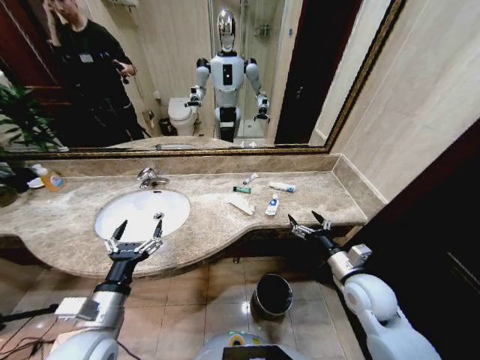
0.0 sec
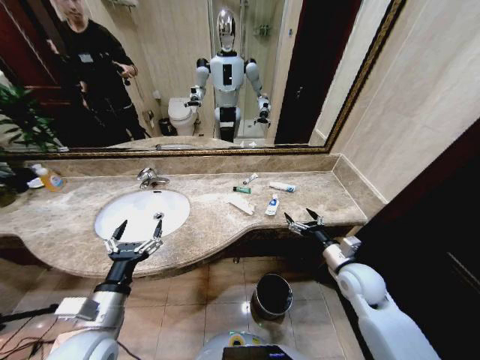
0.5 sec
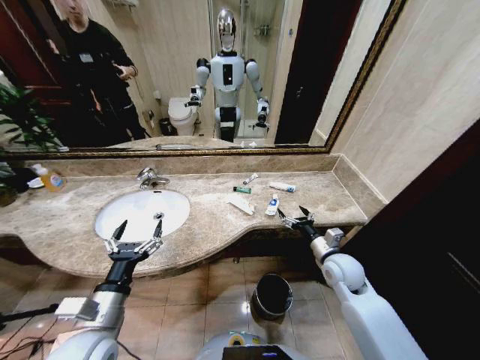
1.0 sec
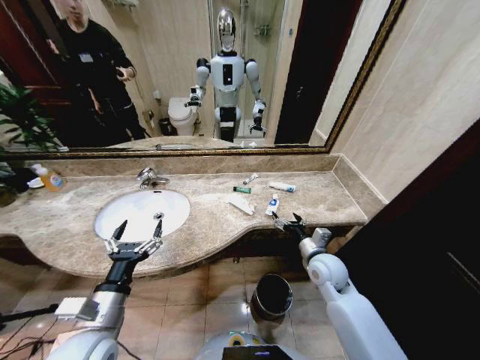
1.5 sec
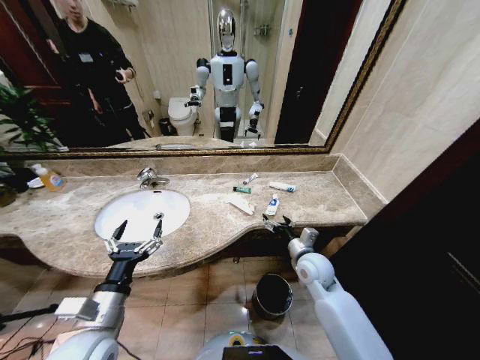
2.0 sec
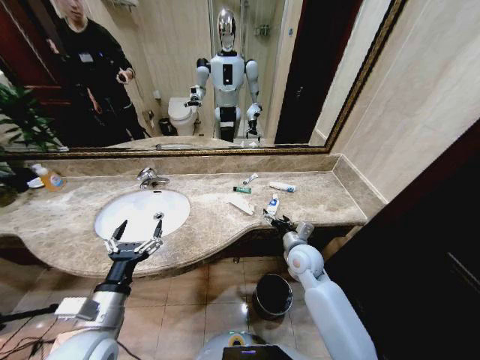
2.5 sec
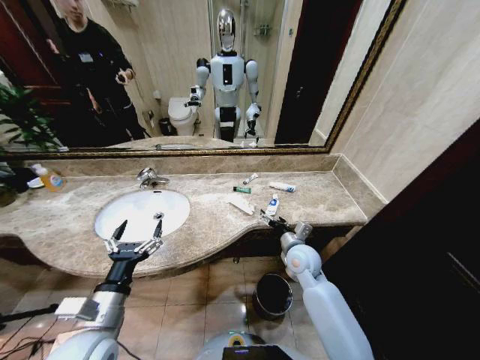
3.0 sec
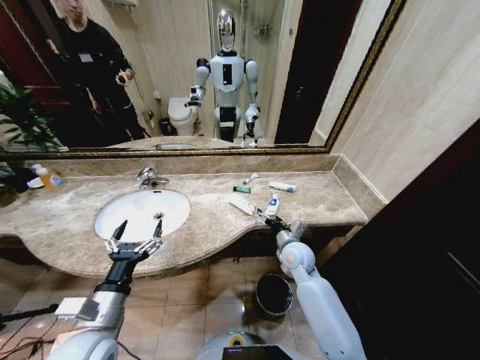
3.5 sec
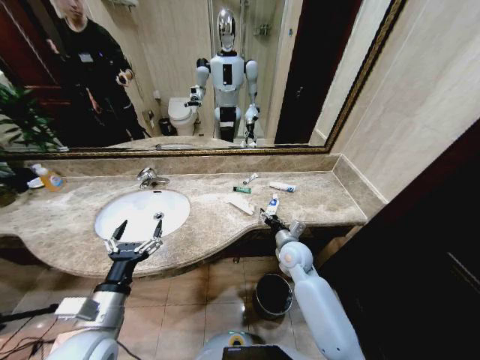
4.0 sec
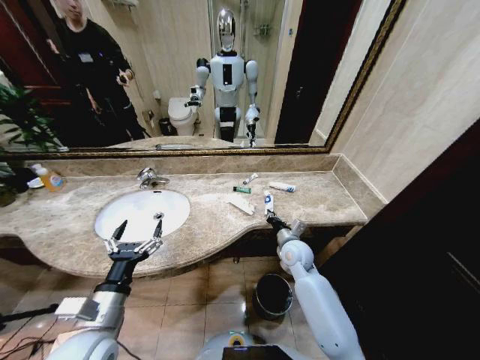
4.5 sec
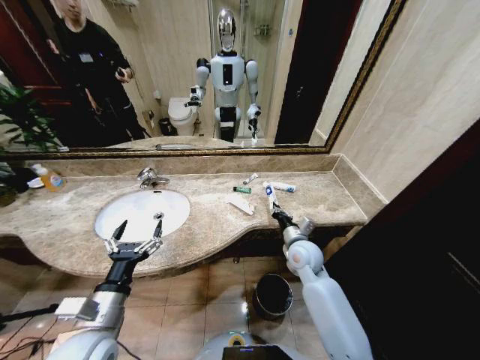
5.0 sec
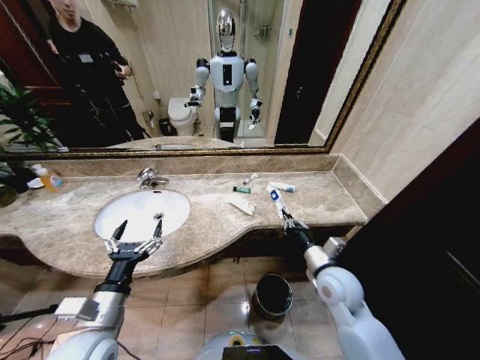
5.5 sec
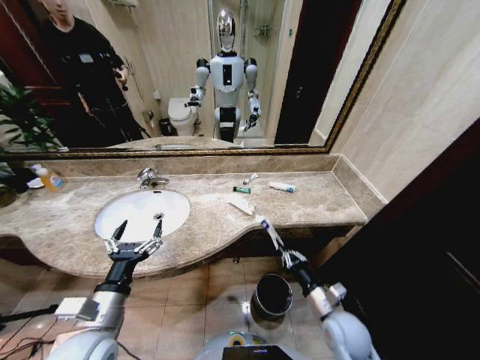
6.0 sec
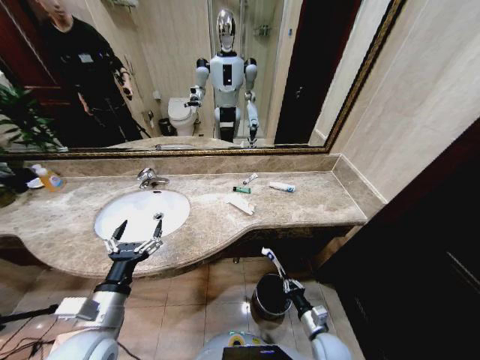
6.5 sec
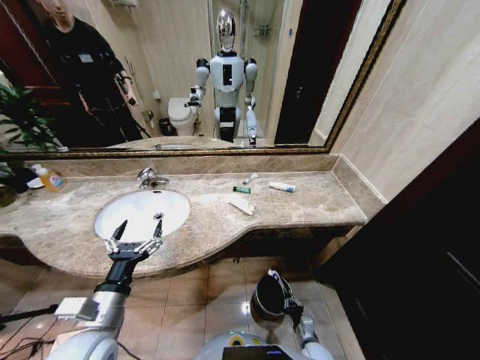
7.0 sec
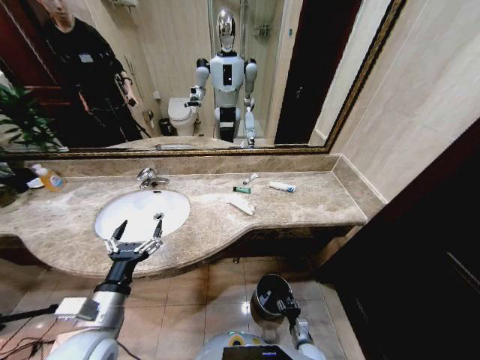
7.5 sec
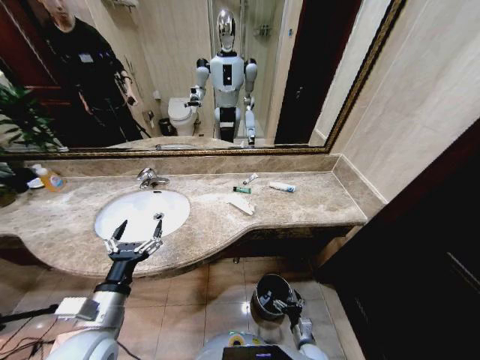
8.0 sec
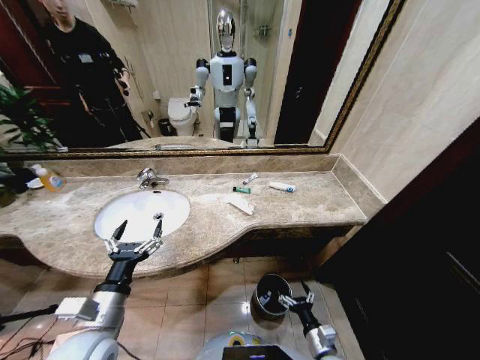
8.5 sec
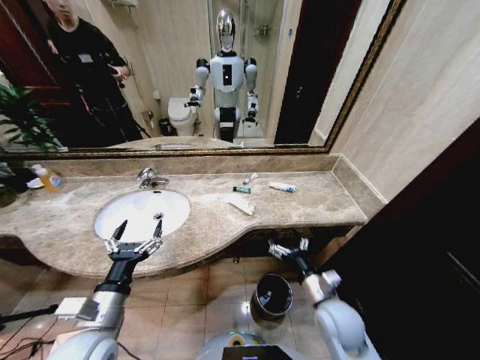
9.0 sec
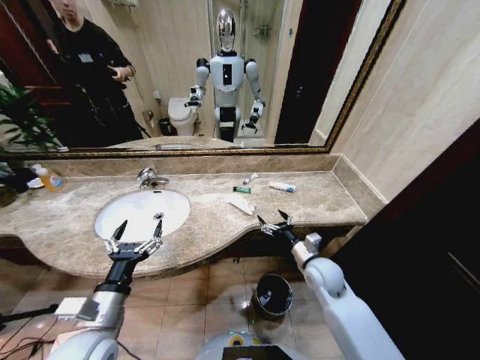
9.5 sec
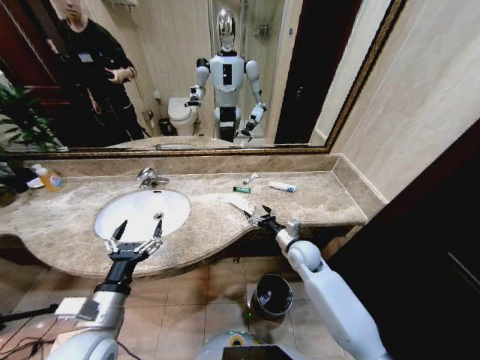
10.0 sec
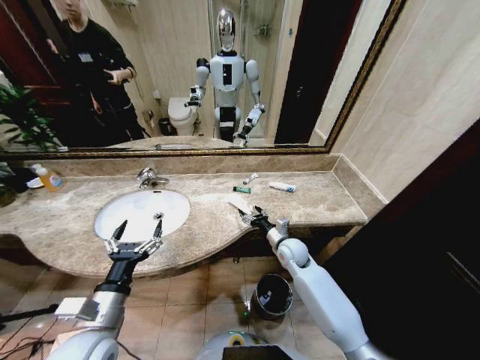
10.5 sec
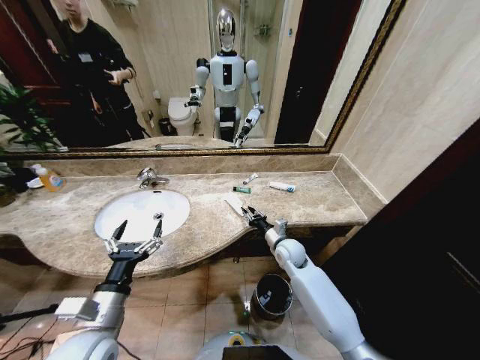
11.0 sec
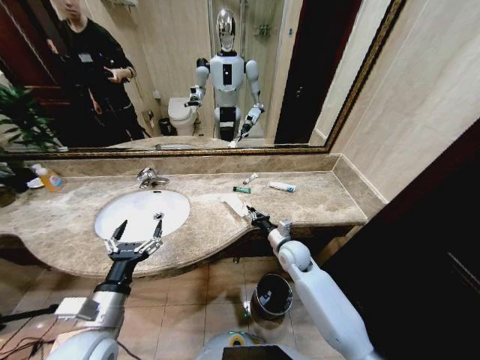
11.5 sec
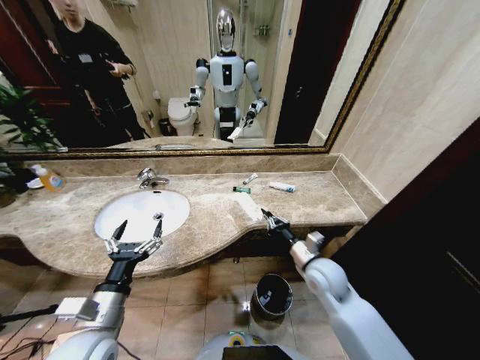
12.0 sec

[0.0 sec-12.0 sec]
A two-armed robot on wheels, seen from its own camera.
Task of the whole recording: Pick up the trash from the sink and place it in the trash bin.
2.0 sec to 4.0 sec: The right gripper ends up some 5 cm from where it was, and closes its fingers.
4.0 sec to 6.0 sec: The right gripper moves backward and to the right, some 20 cm, and closes up.
6.0 sec to 8.0 sec: The right gripper heads downward, covering roughly 25 cm, and opens up.
8.0 sec to 10.0 sec: The right gripper moves upward and forward, approximately 35 cm.
10.0 sec to 12.0 sec: The right gripper shifts about 10 cm backward, and closes its fingers.

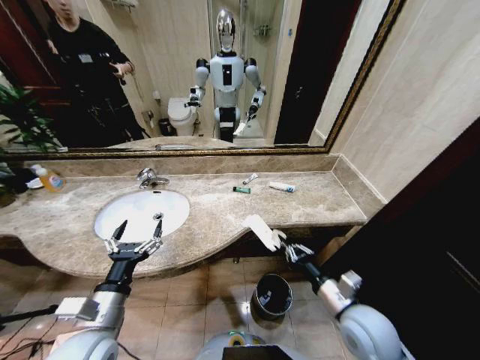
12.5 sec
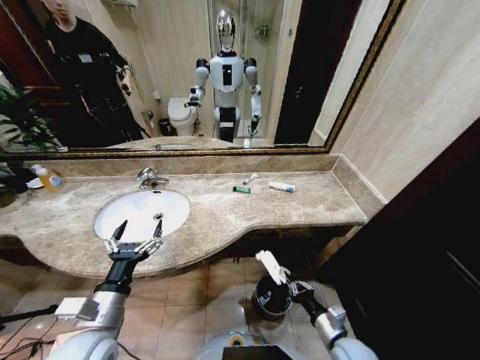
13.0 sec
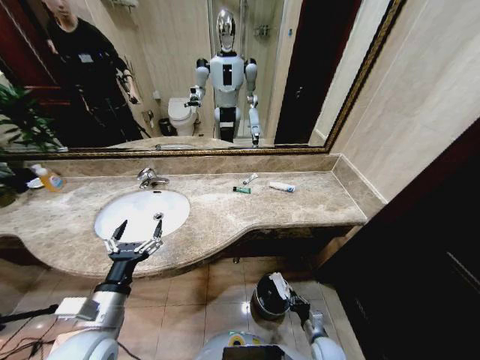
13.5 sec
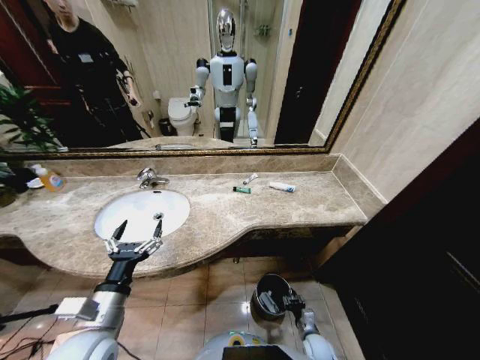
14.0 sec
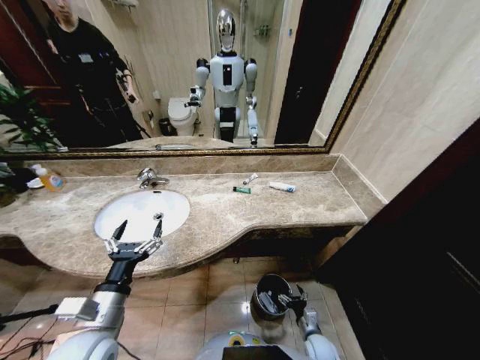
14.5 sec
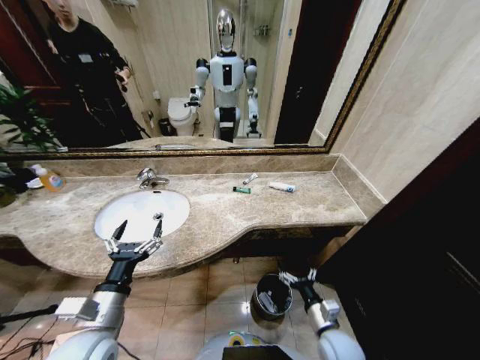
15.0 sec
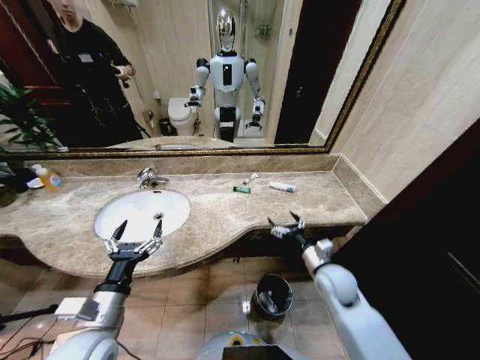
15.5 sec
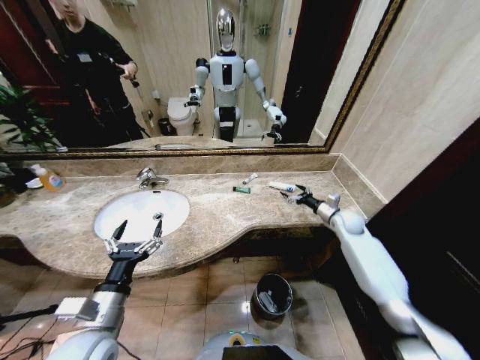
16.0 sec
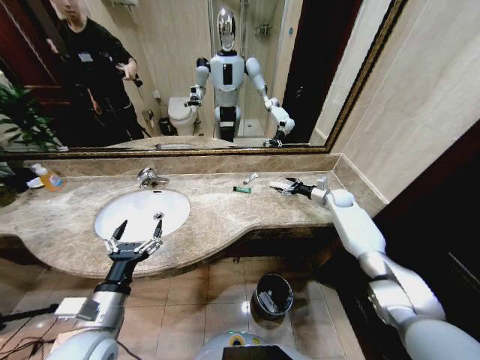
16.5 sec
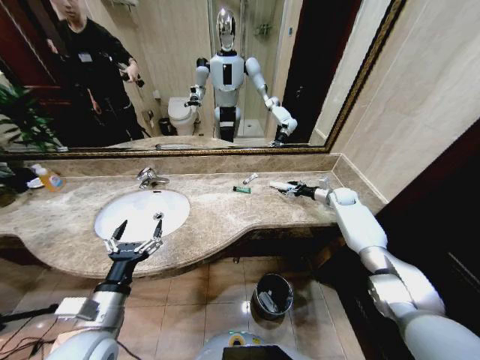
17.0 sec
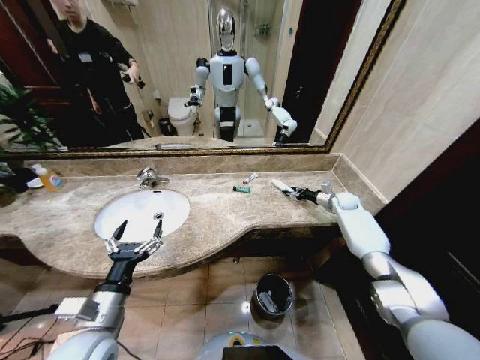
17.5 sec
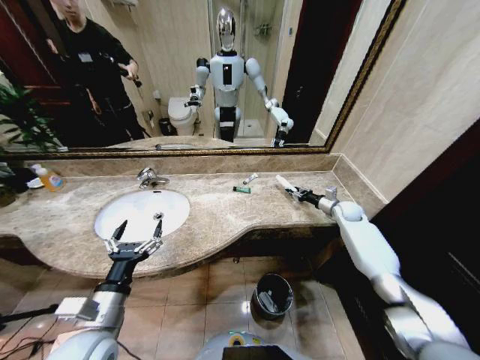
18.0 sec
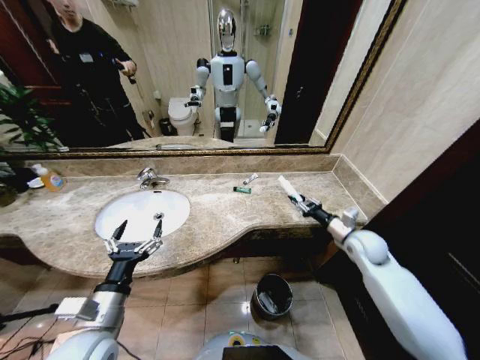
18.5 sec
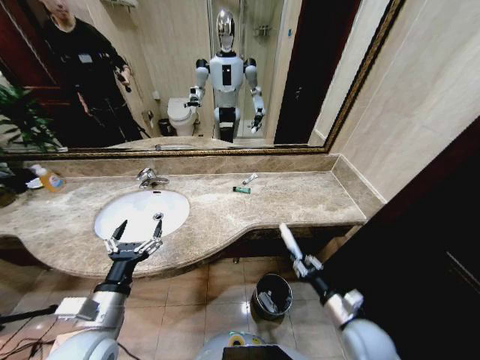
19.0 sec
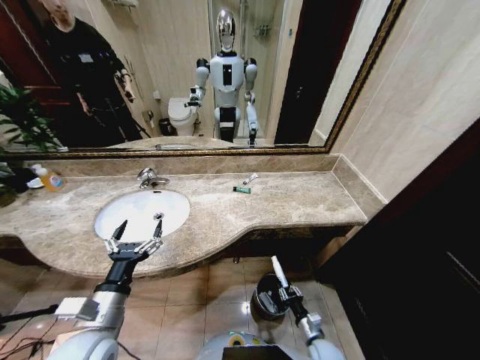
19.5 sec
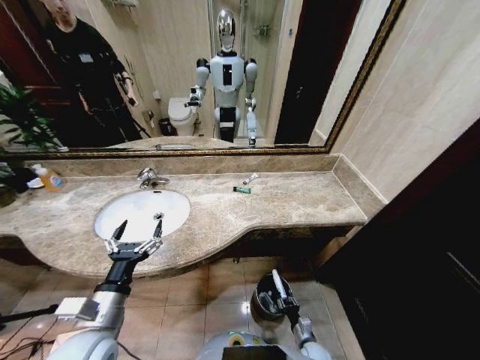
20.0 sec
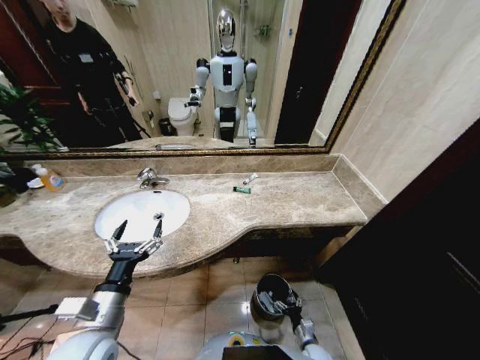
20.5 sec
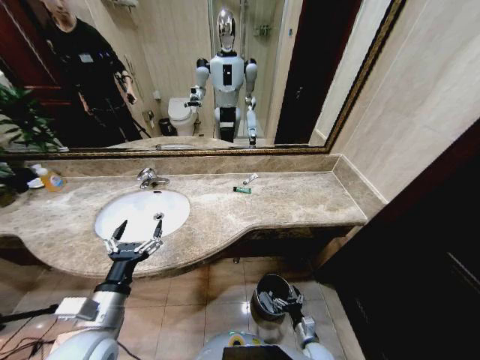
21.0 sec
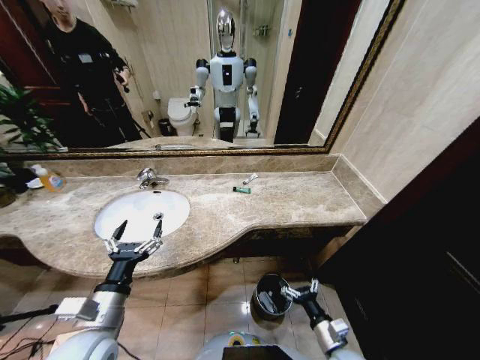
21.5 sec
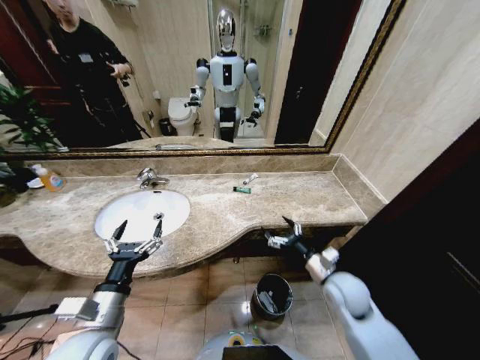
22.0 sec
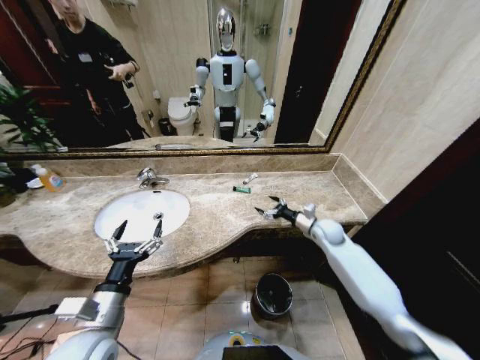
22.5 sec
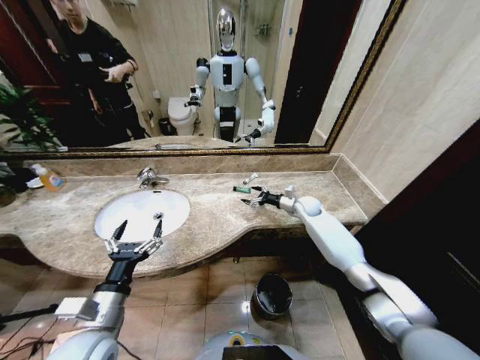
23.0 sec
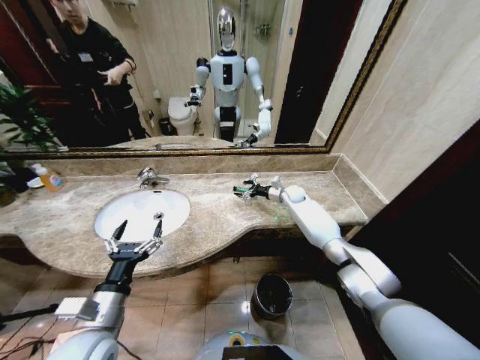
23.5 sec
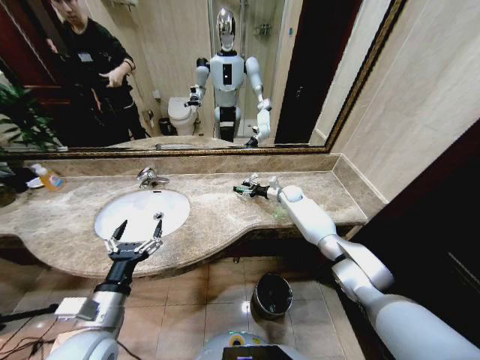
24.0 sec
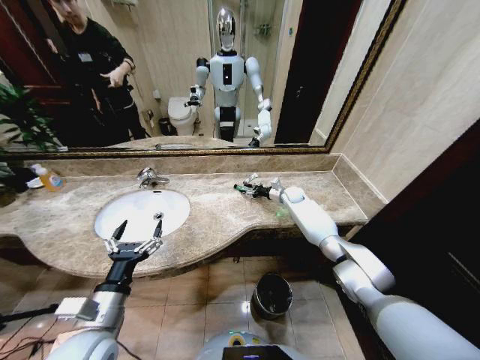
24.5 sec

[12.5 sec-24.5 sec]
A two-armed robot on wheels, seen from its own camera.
Task of the whole recording: Pick up the trash from the sink and place it in the trash bin.
12.5 sec to 14.5 sec: The right gripper moves downward, roughly 30 cm, and opens its fingers.
14.5 sec to 16.5 sec: The right gripper moves forward and upward, roughly 50 cm.
16.5 sec to 18.5 sec: The right gripper heads backward, covering approximately 20 cm, and closes.
18.5 sec to 20.5 sec: The right gripper goes roughly 40 cm downward and backward, and opens.
20.5 sec to 22.5 sec: The right gripper moves upward and forward, roughly 40 cm.
22.5 sec to 24.5 sec: The right gripper heads forward, covering about 20 cm, and closes its fingers.

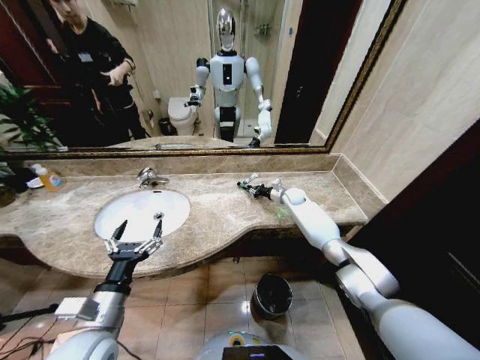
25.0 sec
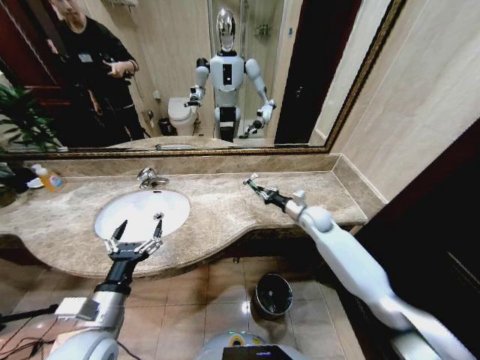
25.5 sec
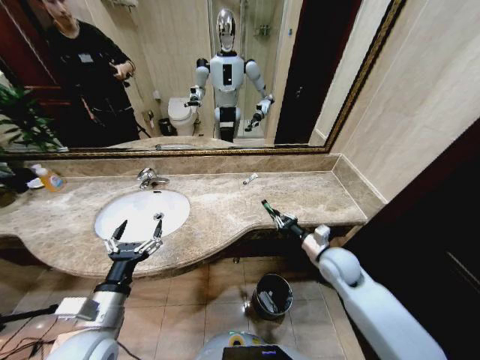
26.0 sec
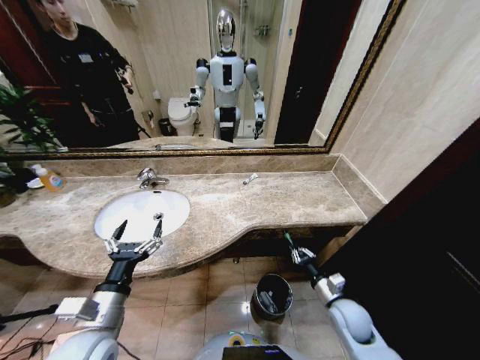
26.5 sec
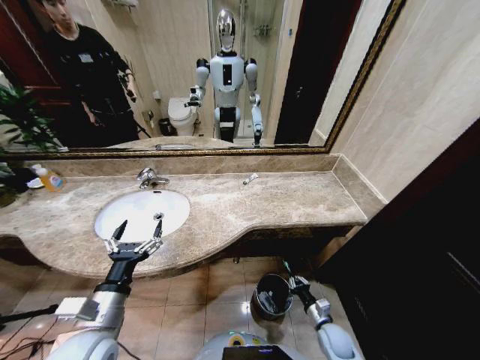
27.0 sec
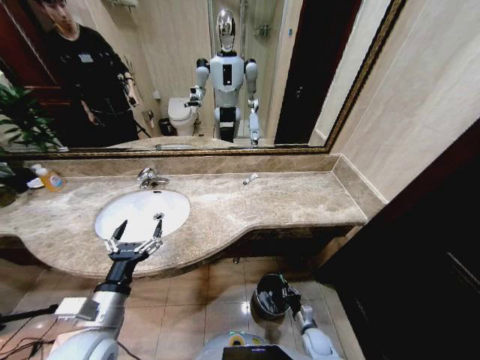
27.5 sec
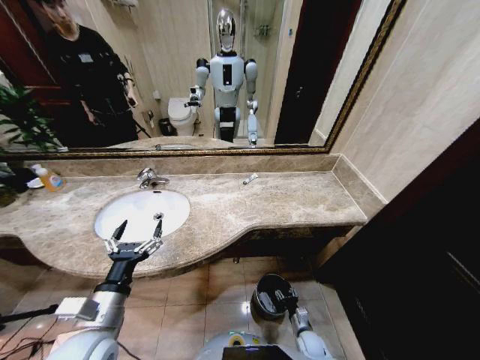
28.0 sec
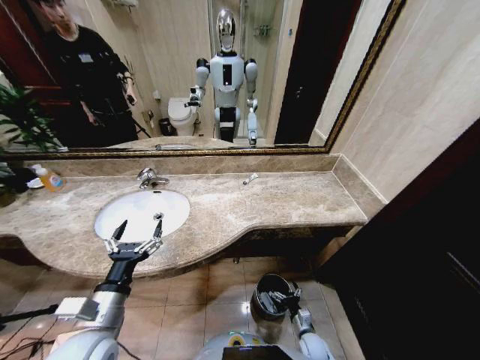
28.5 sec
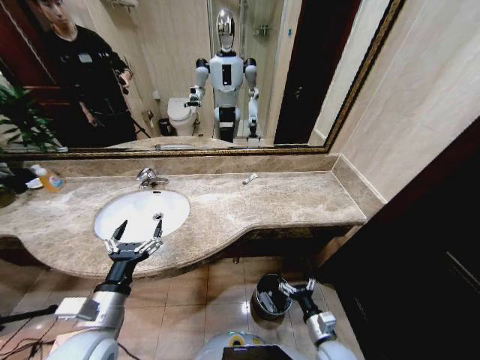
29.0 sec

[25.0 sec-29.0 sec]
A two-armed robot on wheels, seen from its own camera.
Task of the whole recording: Pick up the trash from the sink and place it in the trash bin.
25.0 sec to 27.0 sec: The right gripper travels backward and downward by some 50 cm.
27.0 sec to 29.0 sec: The right gripper shifts some 10 cm upward and to the left, and opens.
